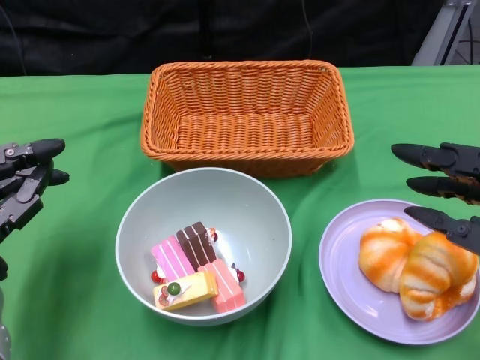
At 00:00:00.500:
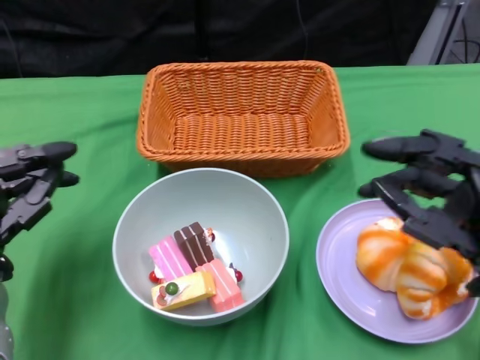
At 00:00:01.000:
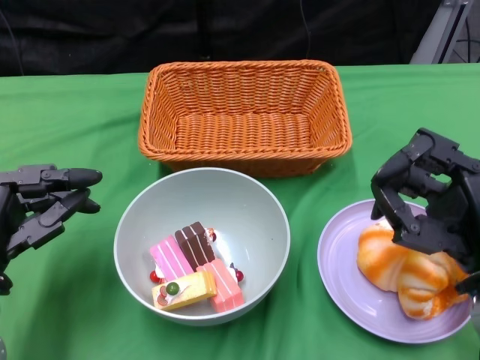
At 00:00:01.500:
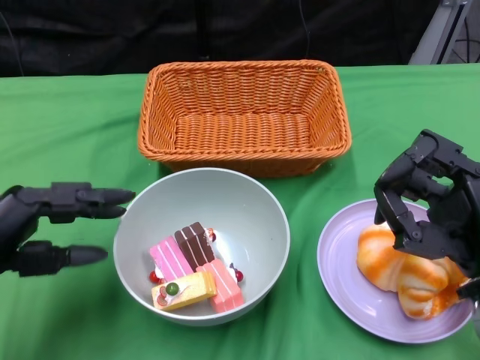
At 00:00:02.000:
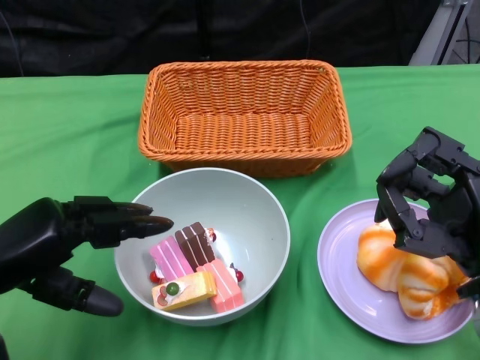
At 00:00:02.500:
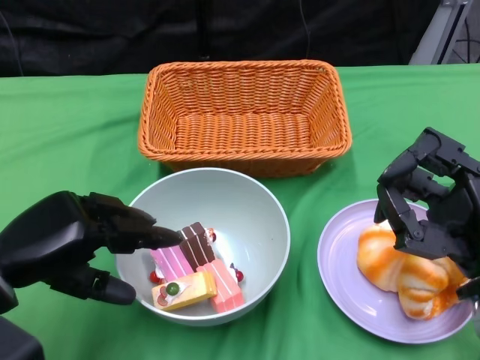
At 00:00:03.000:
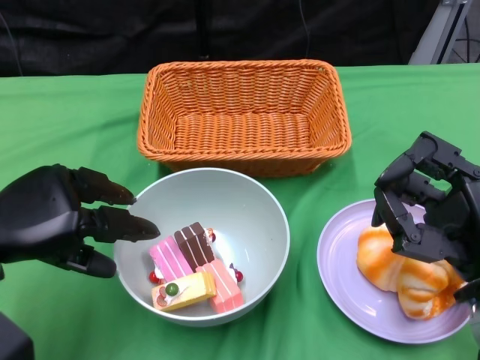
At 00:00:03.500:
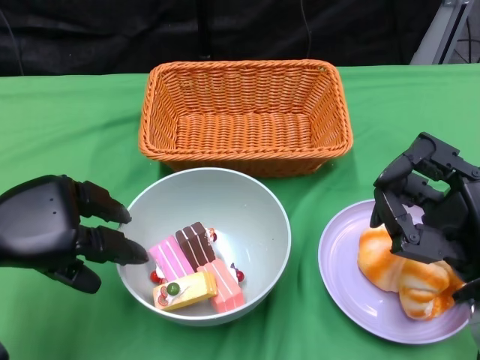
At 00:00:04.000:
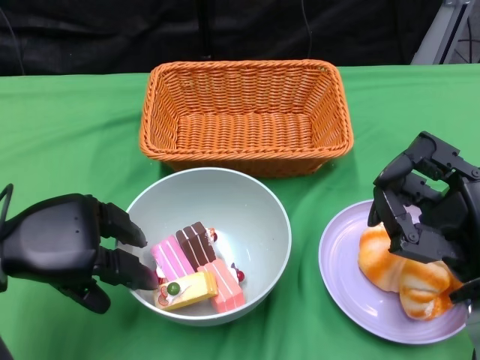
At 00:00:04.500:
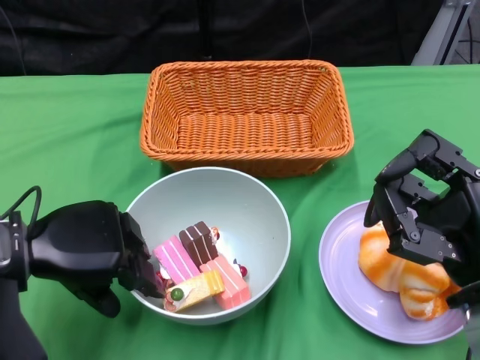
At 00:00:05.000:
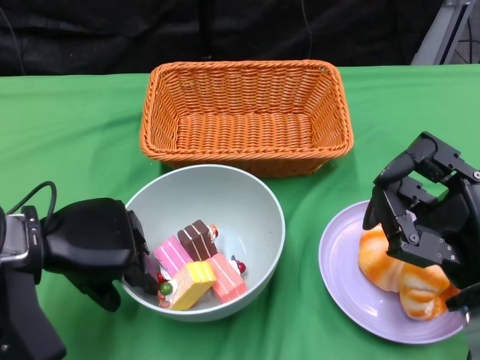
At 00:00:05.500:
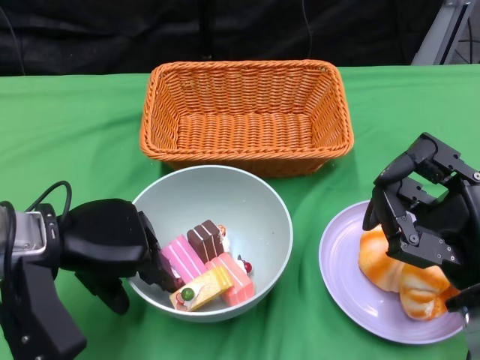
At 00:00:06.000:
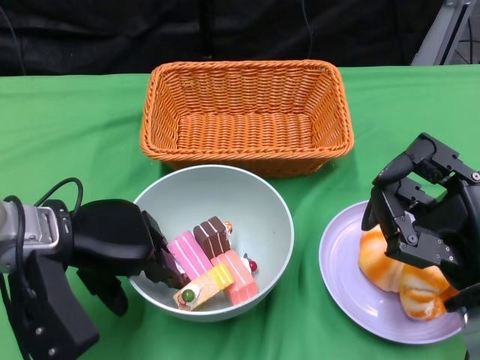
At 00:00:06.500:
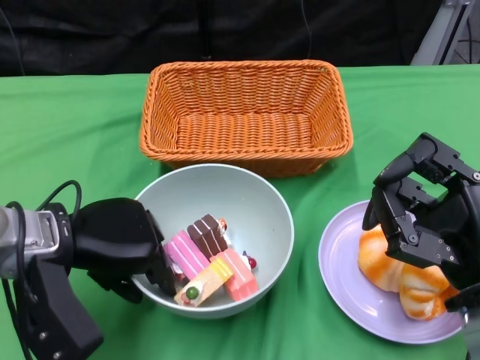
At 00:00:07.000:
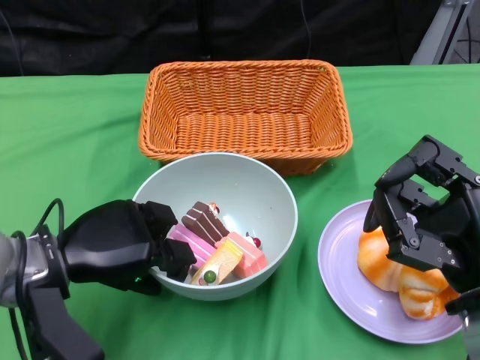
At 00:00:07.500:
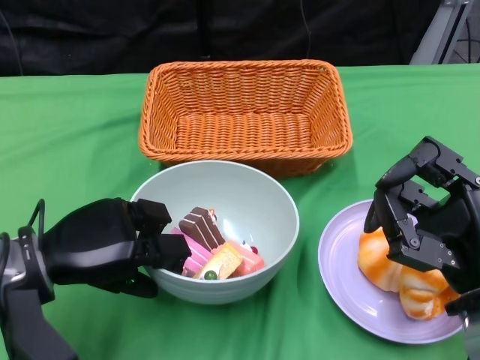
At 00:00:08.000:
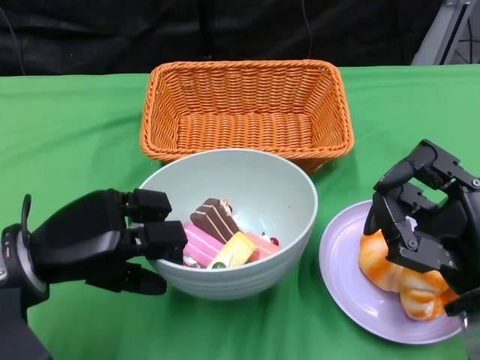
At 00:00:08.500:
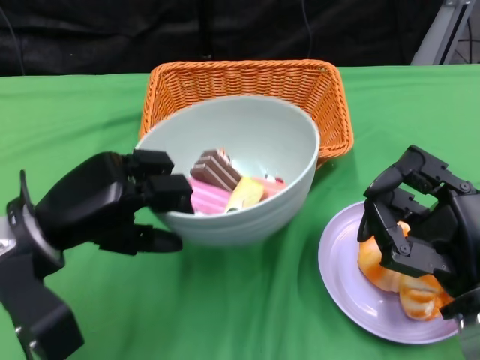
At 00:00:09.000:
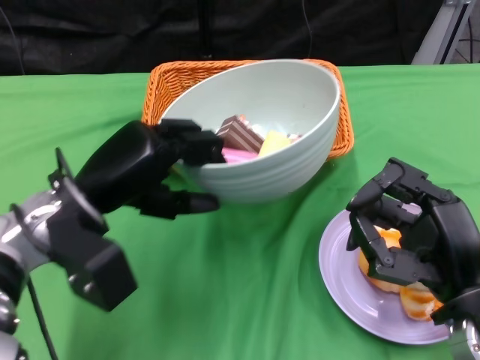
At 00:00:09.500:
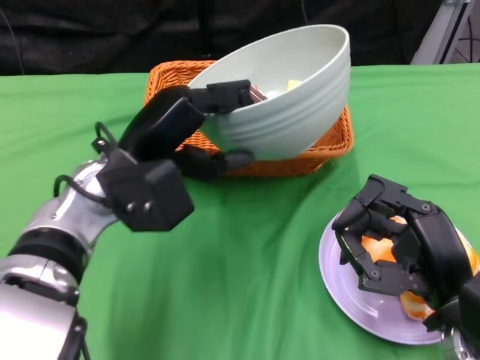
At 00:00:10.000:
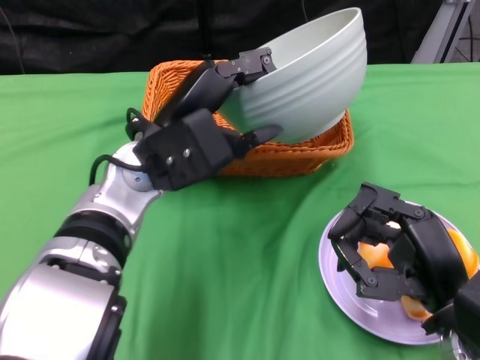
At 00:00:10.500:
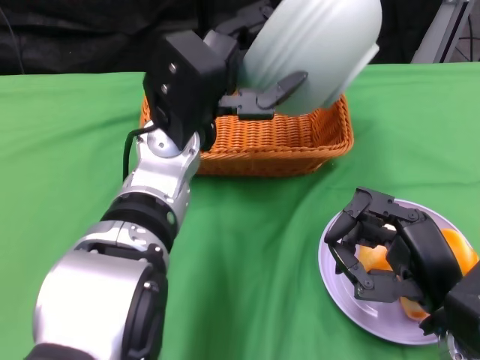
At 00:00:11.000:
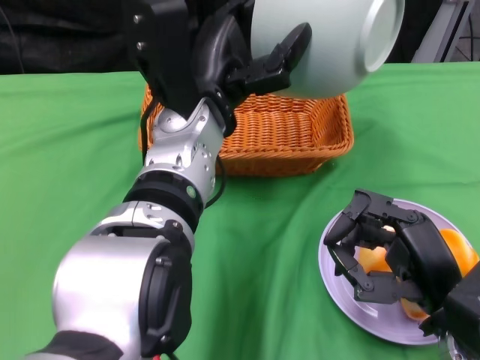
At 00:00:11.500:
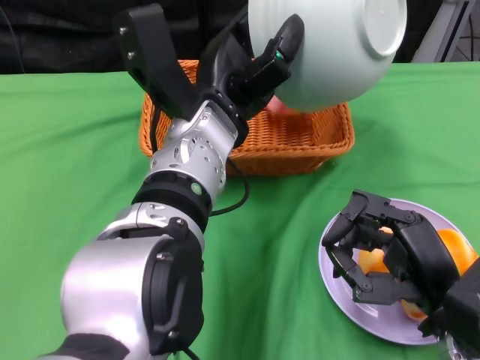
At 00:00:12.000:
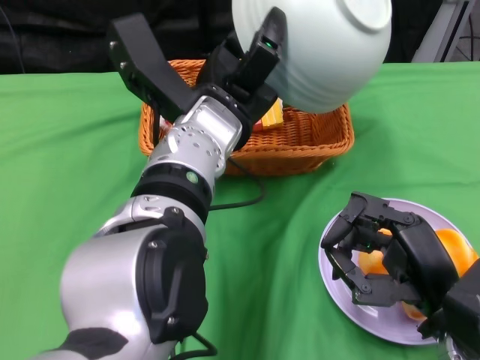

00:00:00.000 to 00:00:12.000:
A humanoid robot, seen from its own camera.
Step, 00:00:00.000 to 00:00:06.000: Grasp the bowl with the left gripper.
00:00:00.000 to 00:00:02.000: The right hand shifts by about 5 cm.
00:00:04.000 to 00:00:06.000: The left hand goes about 5 cm to the right.
00:00:08.000 to 00:00:10.000: The left hand moves to the right, forward and upward, approximately 15 cm.
00:00:10.000 to 00:00:12.000: The left hand heads to the right, covering approximately 5 cm.

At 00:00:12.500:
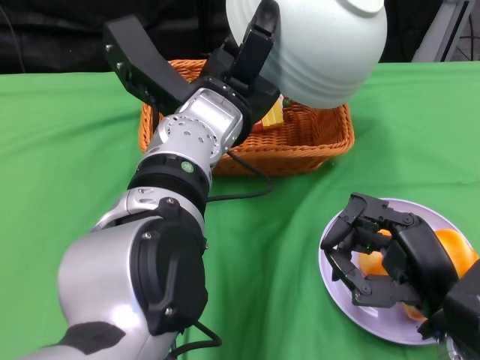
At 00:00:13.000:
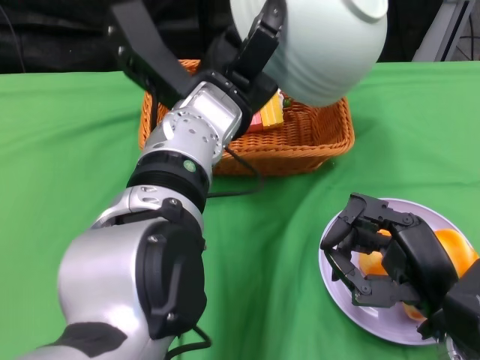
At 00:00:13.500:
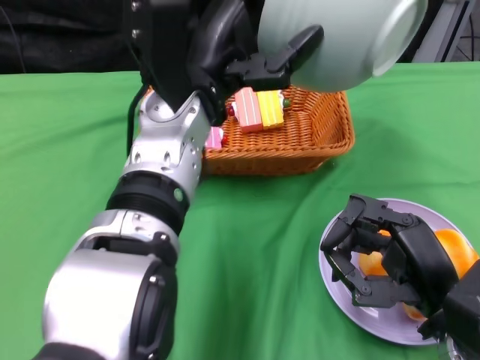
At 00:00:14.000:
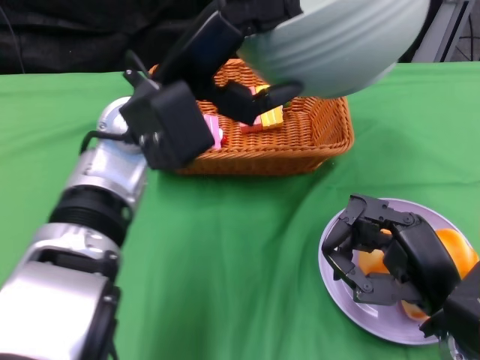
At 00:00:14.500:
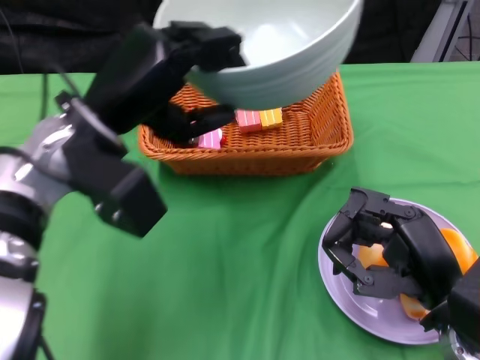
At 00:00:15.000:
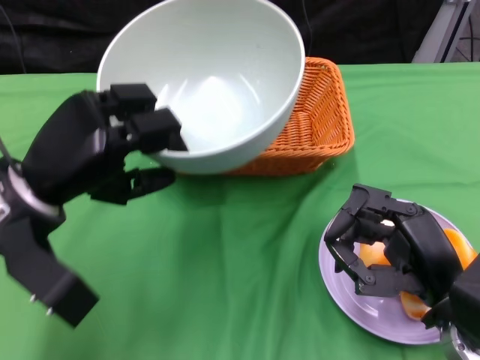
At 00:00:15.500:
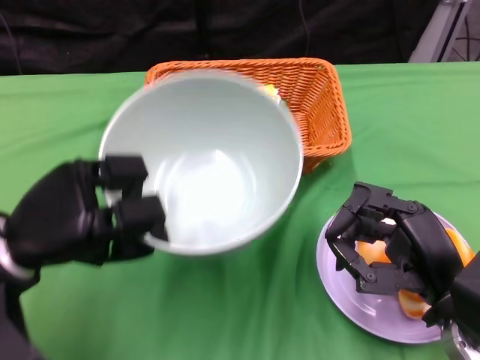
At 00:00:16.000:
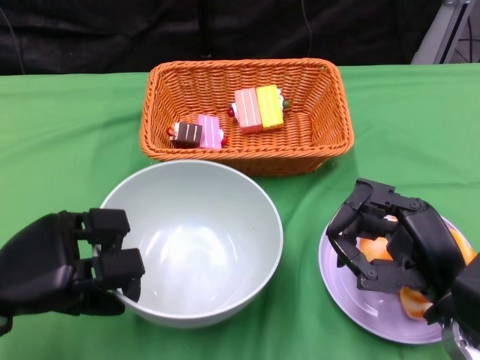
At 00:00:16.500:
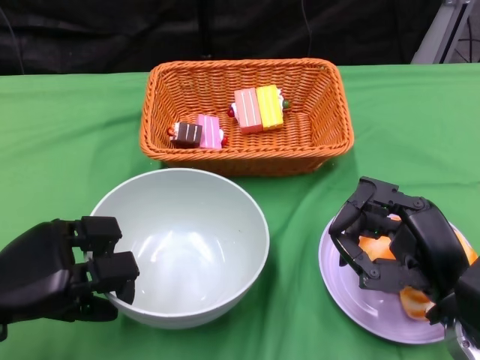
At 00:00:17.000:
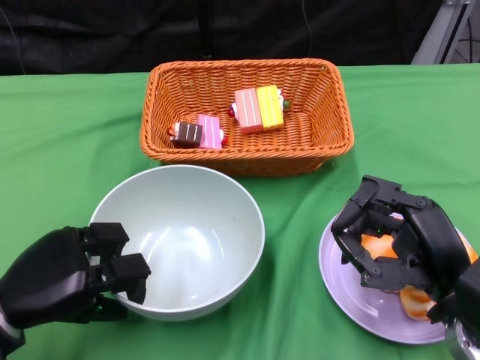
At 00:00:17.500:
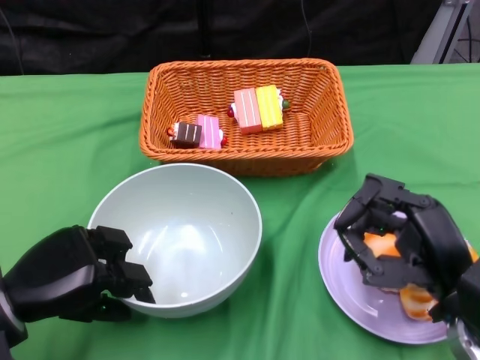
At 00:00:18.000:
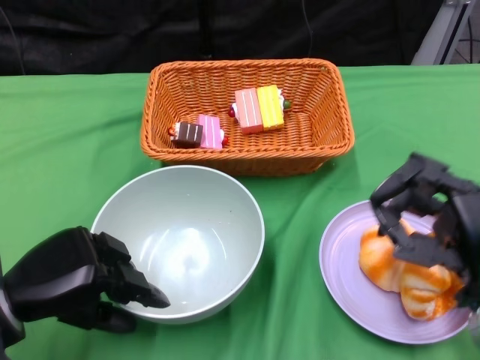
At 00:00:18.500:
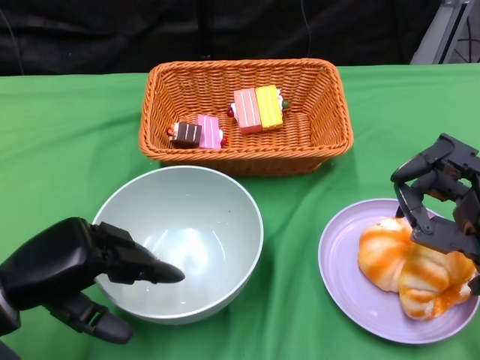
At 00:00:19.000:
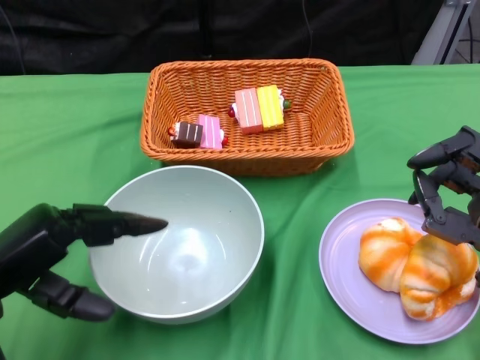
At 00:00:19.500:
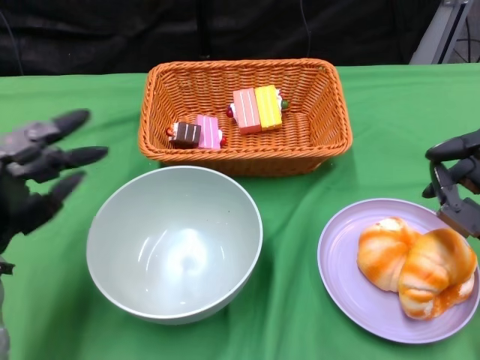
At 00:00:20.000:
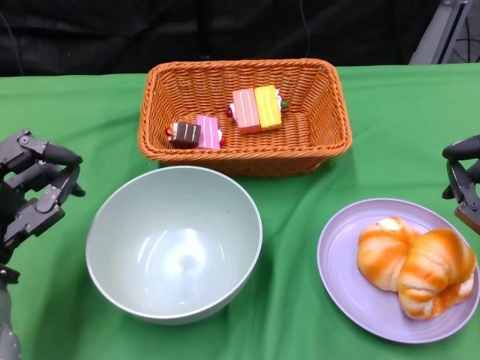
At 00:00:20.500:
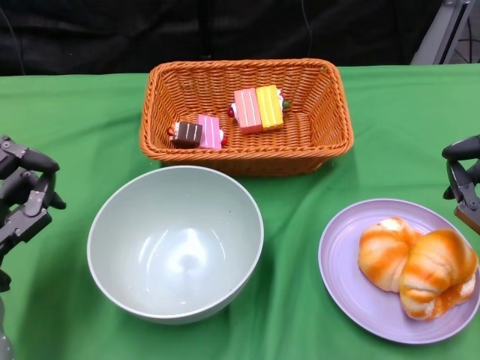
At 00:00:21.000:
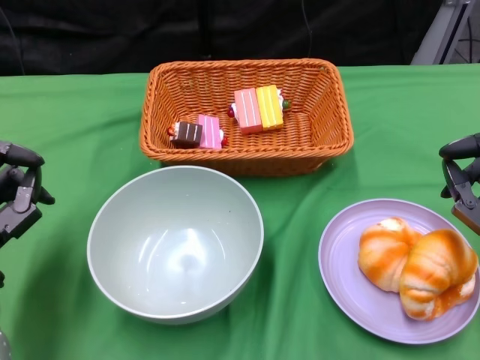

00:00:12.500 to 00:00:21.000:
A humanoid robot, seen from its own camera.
Step, 00:00:13.500 to 00:00:18.500: Place the bowl on the table with the left gripper.
00:00:12.500 to 00:00:14.500: The left hand shifts some 10 cm to the left.
00:00:14.500 to 00:00:16.500: The left hand goes approximately 20 cm downward, to the left and backward.
